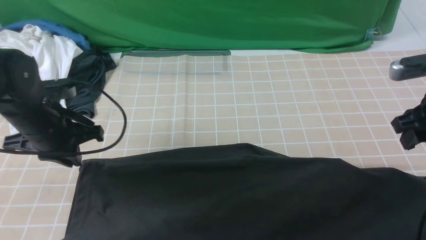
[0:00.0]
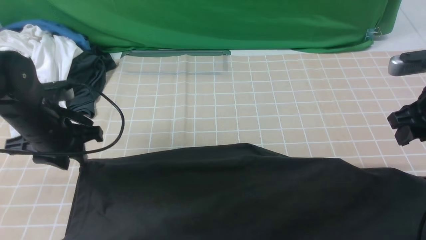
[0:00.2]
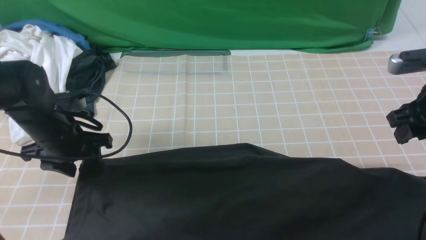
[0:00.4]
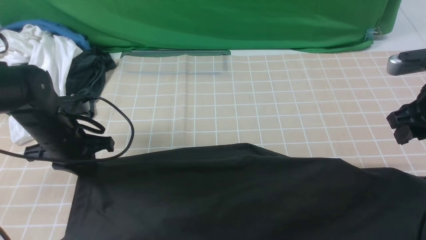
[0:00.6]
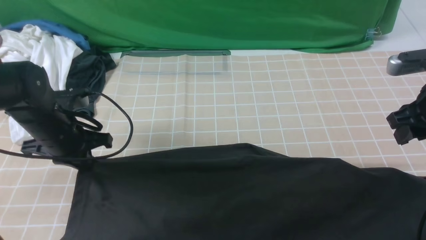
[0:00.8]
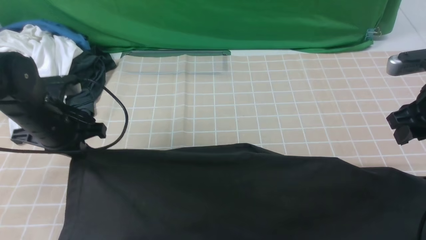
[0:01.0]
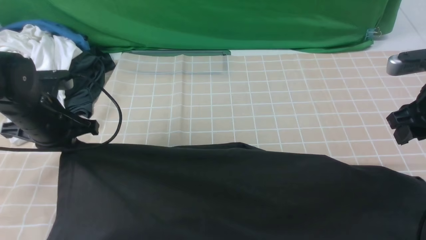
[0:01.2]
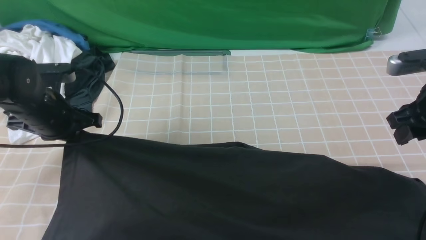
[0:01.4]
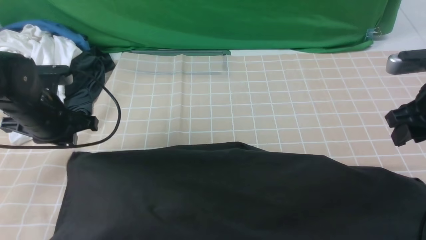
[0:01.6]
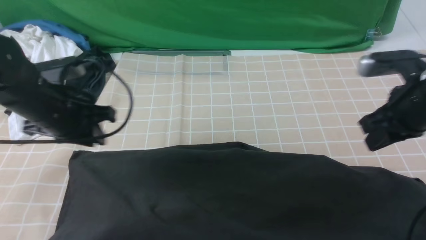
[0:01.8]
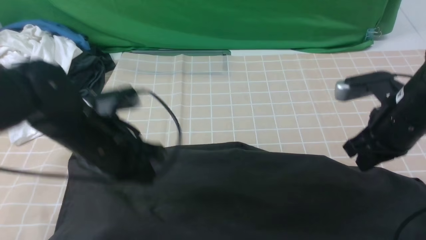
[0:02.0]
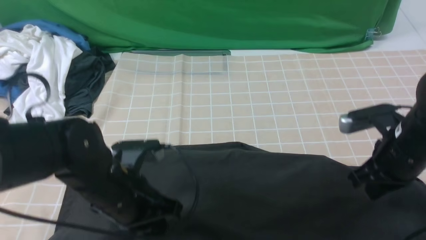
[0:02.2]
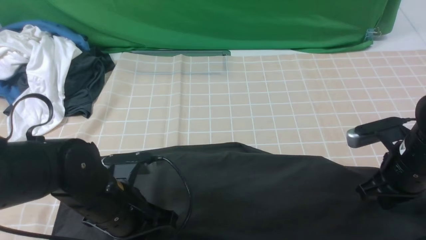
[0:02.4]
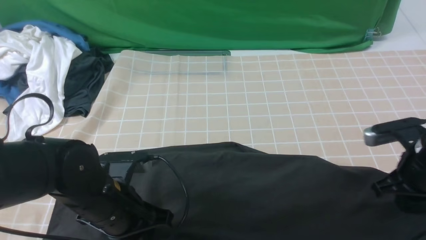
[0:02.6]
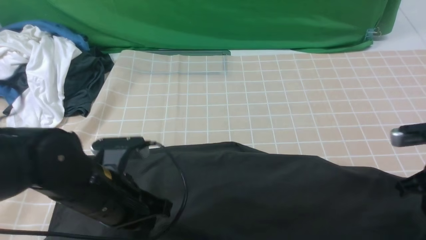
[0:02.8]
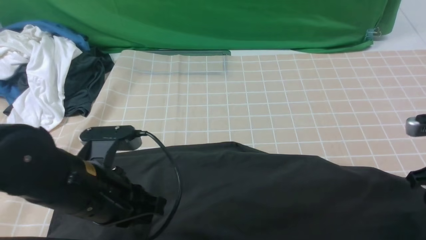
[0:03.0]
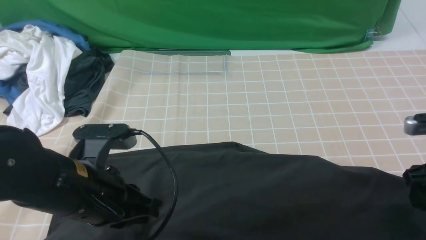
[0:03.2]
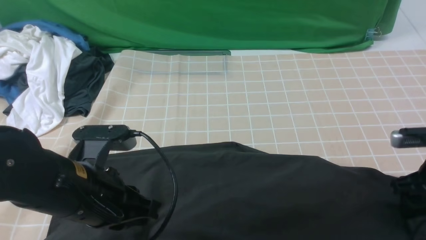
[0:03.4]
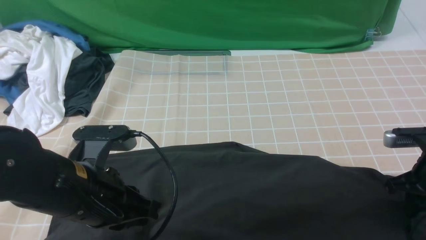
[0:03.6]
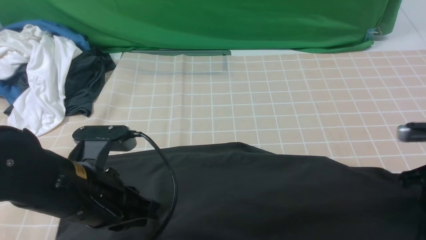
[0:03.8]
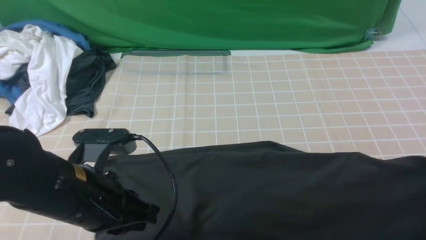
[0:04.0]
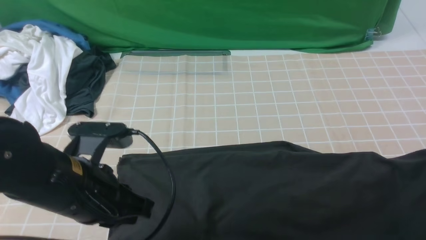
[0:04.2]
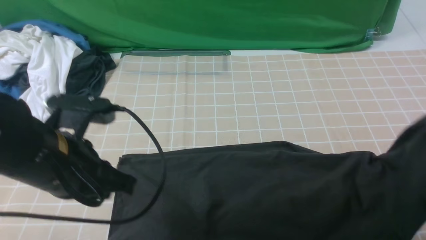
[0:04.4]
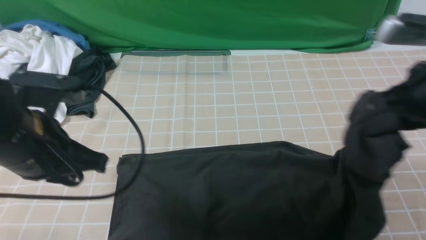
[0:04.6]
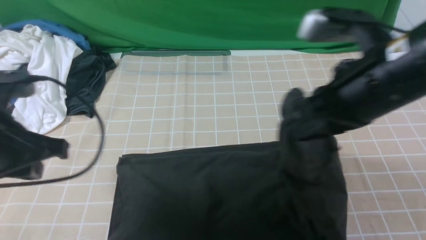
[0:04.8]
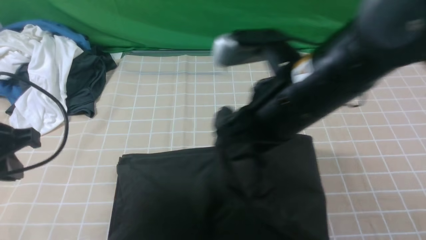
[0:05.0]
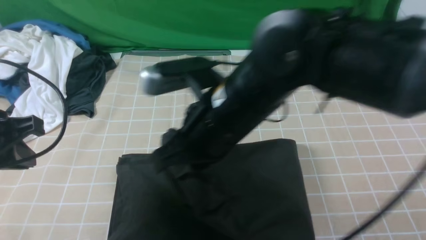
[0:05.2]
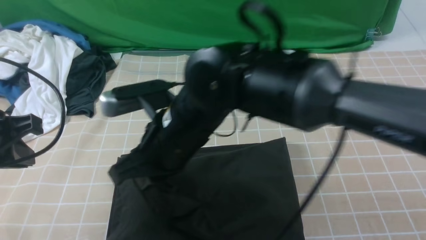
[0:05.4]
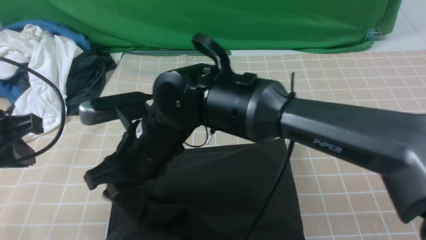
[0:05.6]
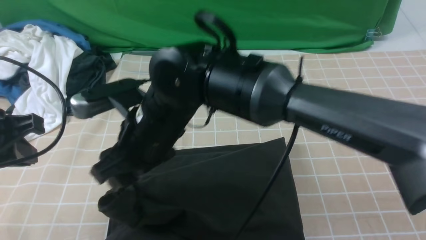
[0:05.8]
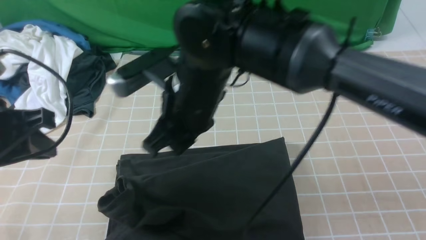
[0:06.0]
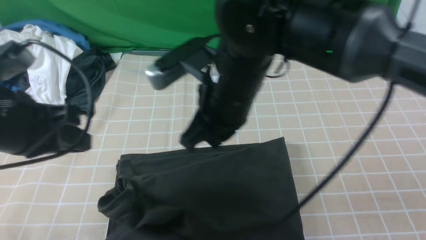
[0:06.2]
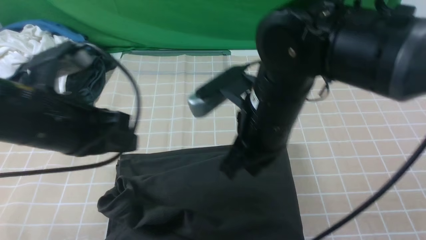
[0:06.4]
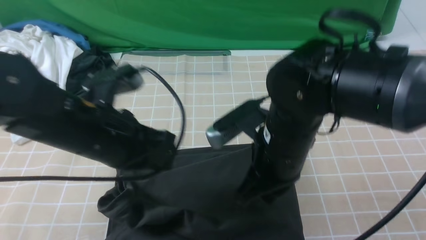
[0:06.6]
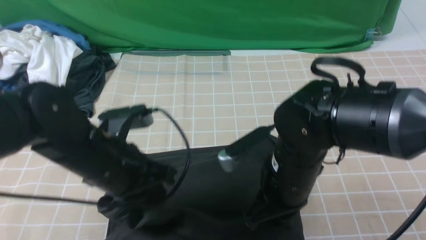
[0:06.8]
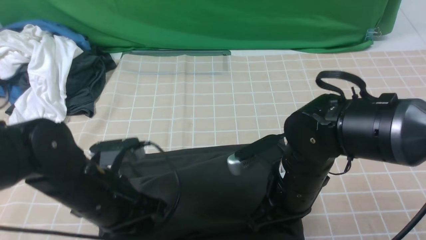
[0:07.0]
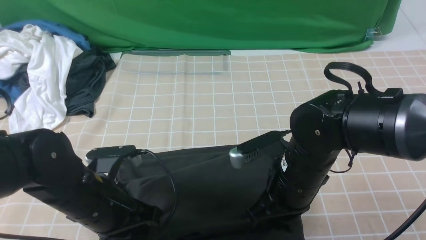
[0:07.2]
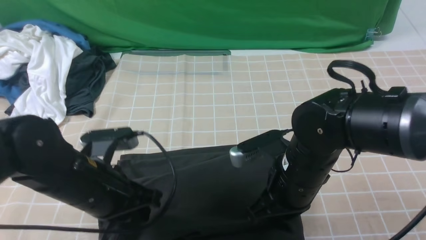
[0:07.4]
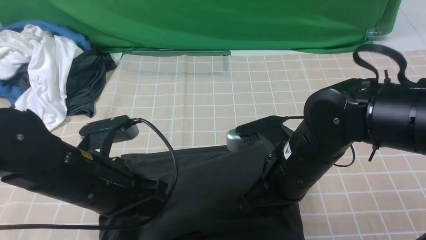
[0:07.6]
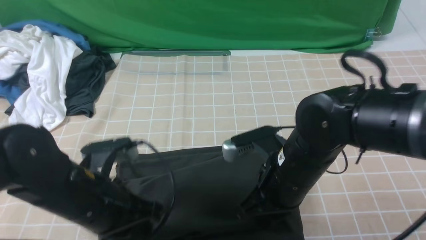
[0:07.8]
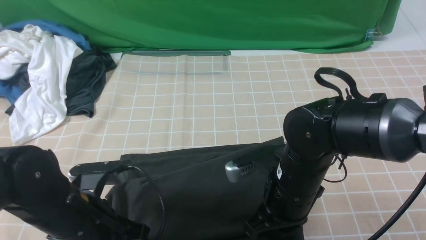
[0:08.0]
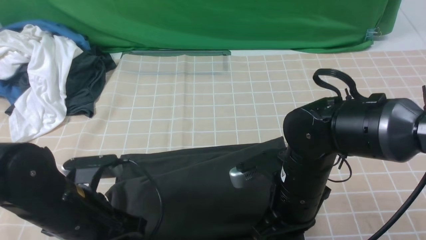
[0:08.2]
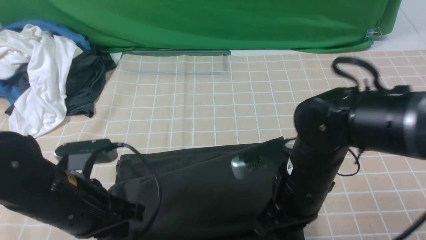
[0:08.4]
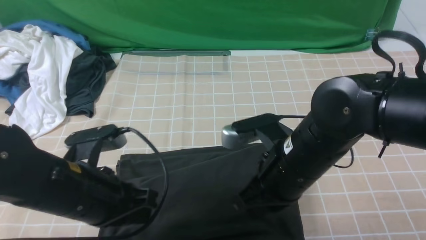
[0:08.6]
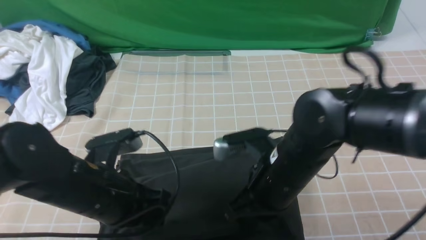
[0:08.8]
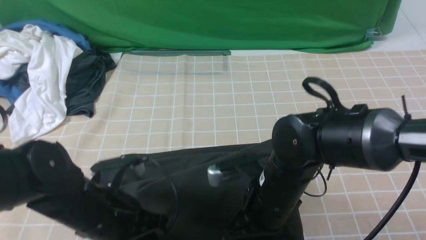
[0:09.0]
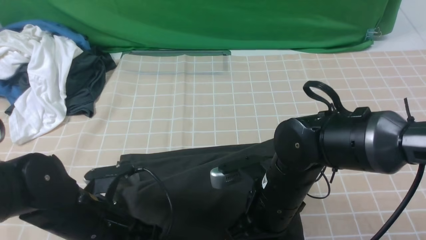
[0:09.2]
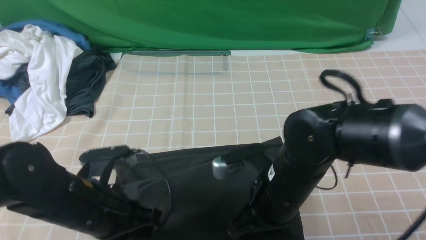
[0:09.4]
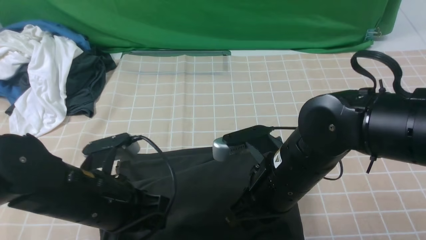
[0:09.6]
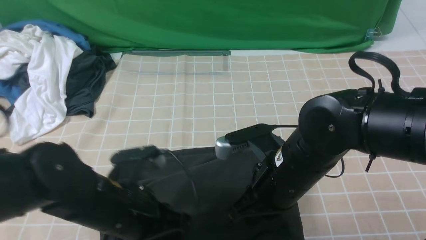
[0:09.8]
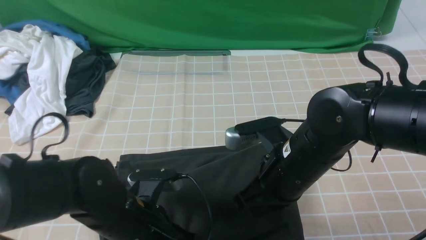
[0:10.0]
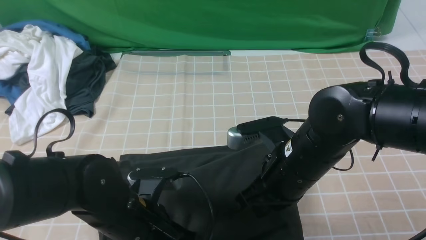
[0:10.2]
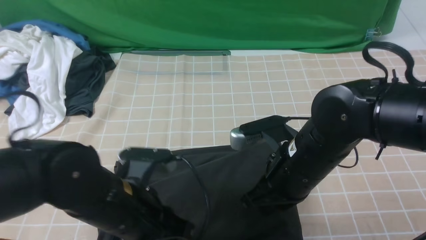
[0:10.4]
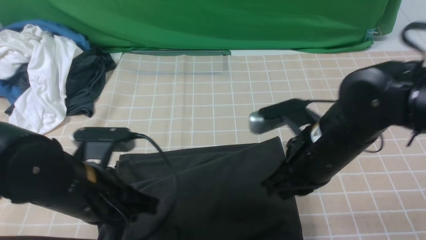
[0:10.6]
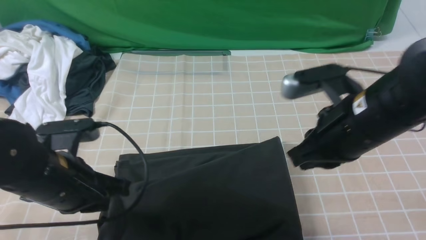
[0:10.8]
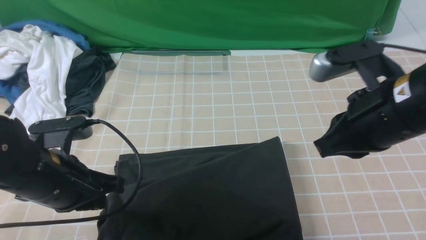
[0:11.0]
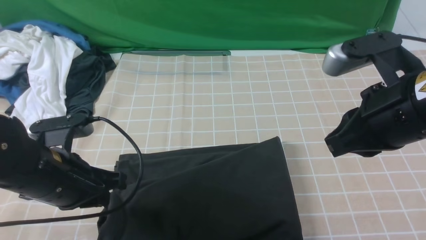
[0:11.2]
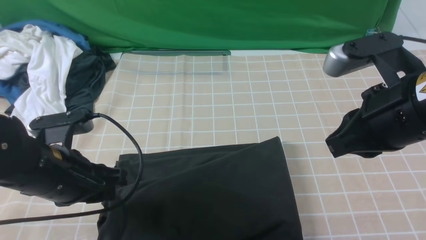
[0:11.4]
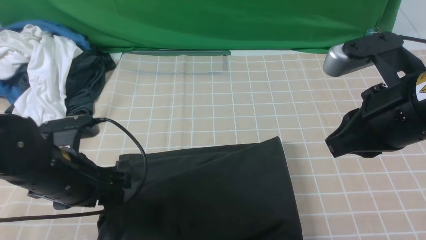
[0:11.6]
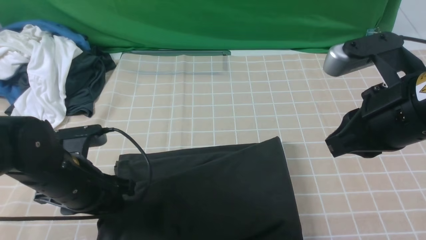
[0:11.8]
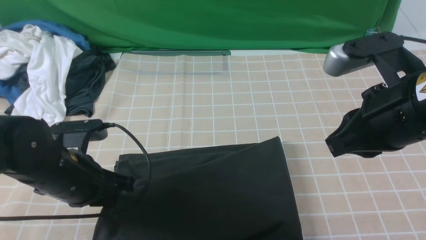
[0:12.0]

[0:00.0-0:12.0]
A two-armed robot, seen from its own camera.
Step, 0:00.0 to 0:03.8: use the right arm to clamp the right edge of the fabric.
Step, 0:04.0 to 0:06.0: use the right arm to drag the right edge of the fabric to the left and folds it over the left edge.
0:00.0 to 0:01.6: The left gripper opens, then closes once more.
0:01.6 to 0:03.0: The right gripper travels downward and backward by roughly 10 cm, and closes, then reopens, while the left gripper heads backward and to the right, covering approximately 15 cm.
0:03.0 to 0:04.4: The left gripper moves roughly 5 cm. The right gripper heads upward, covering some 10 cm, and closes.
0:04.4 to 0:06.0: The right gripper is displaced to the left by about 35 cm, while the left gripper heads to the left, covering roughly 10 cm.
0:06.0 to 0:07.6: Both grippers move to the right and downward, approximately 15 cm. The right gripper closes.
0:09.0 to 0:10.4: The right gripper is displaced upward by some 5 cm.
0:10.4 to 0:12.0: The right gripper heads upward and to the right, covering about 15 cm. The left gripper moves to the left, about 5 cm, and opens, then closes once more.

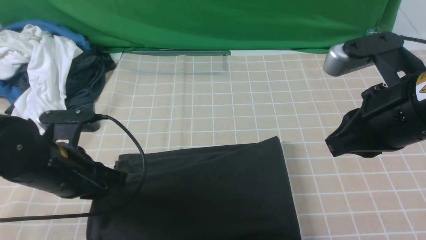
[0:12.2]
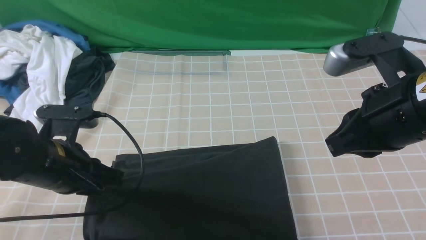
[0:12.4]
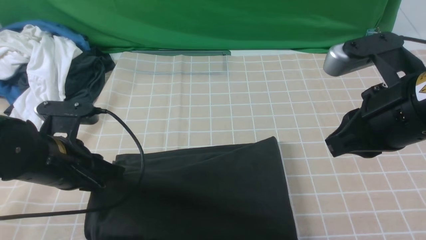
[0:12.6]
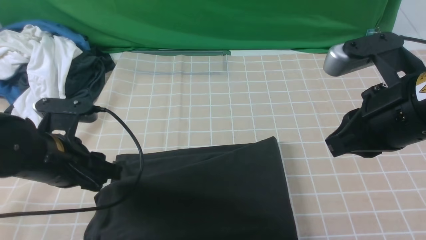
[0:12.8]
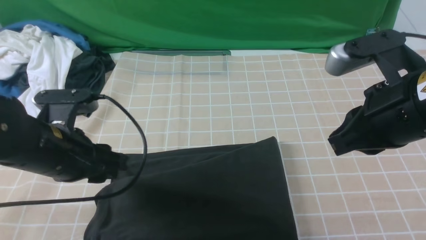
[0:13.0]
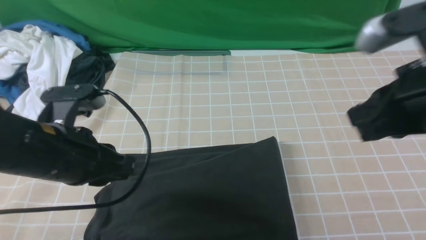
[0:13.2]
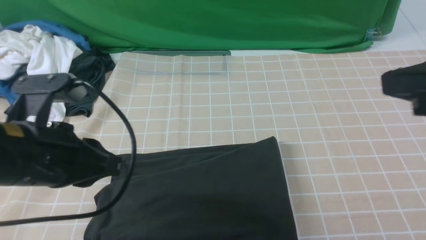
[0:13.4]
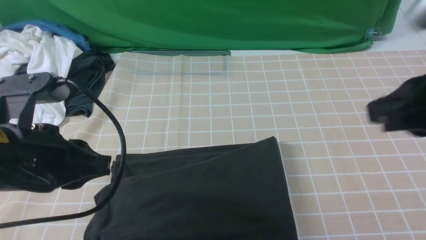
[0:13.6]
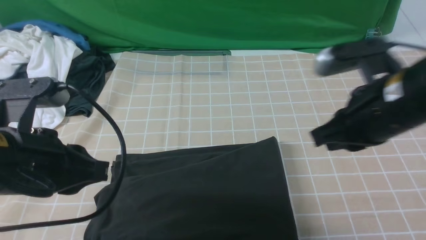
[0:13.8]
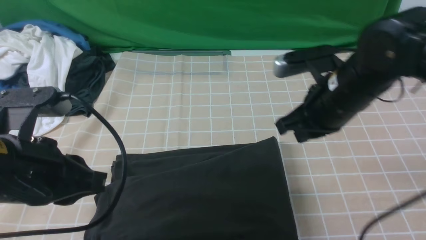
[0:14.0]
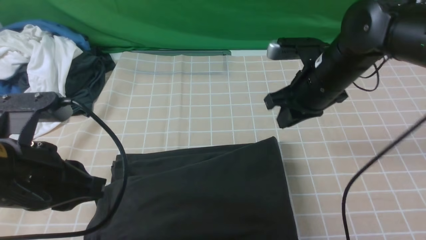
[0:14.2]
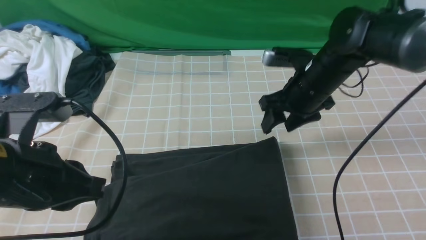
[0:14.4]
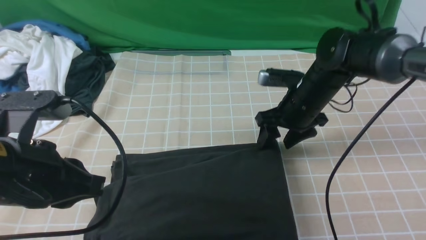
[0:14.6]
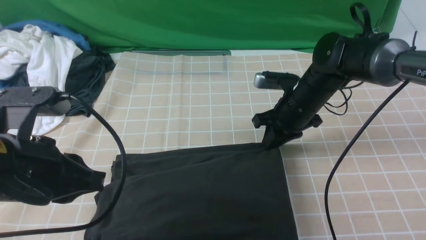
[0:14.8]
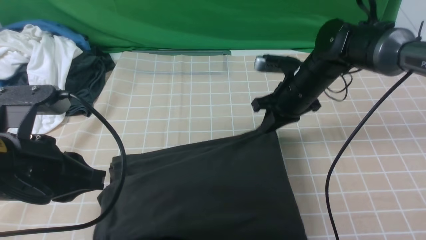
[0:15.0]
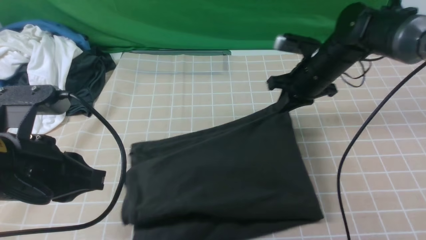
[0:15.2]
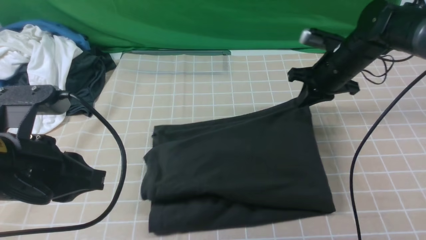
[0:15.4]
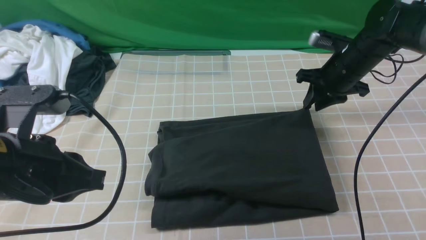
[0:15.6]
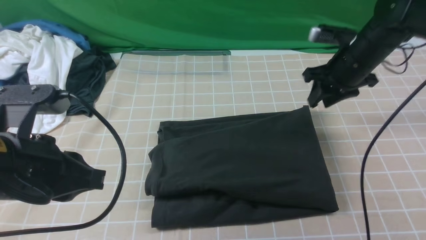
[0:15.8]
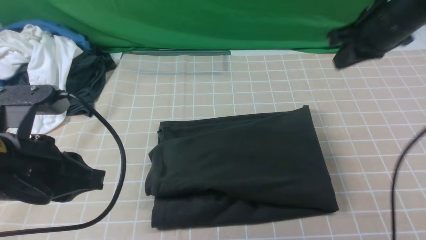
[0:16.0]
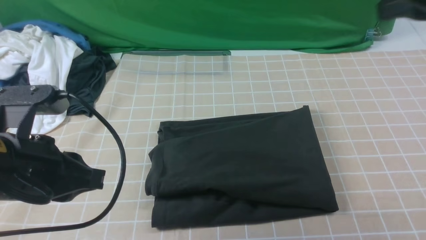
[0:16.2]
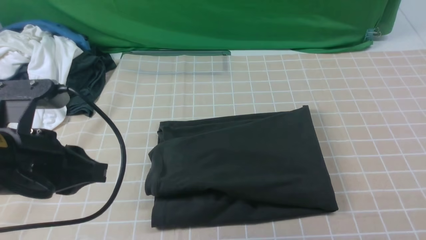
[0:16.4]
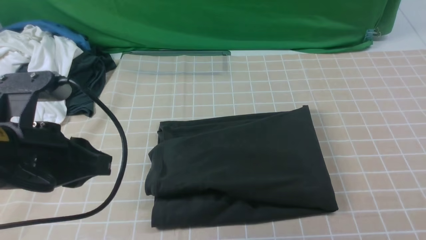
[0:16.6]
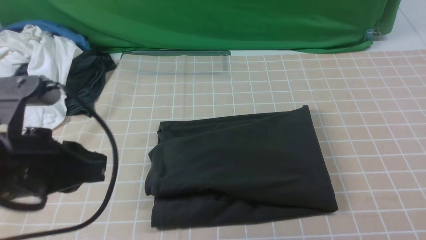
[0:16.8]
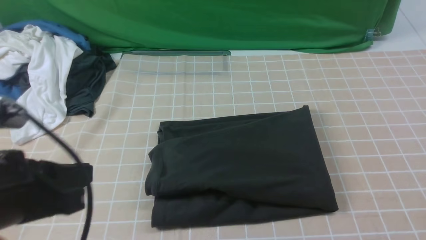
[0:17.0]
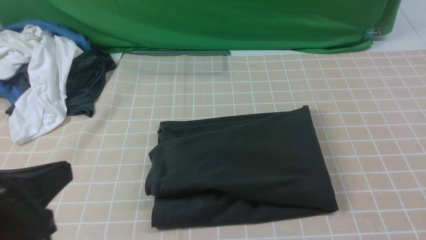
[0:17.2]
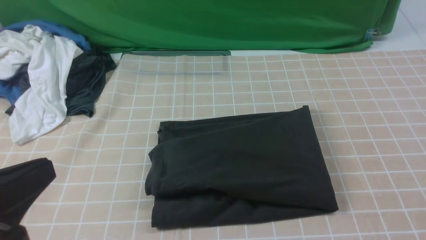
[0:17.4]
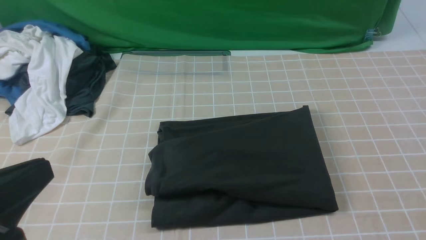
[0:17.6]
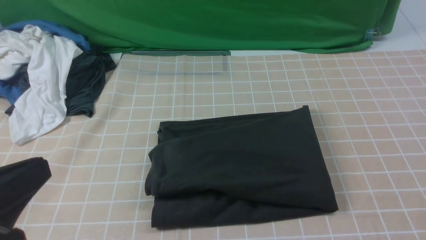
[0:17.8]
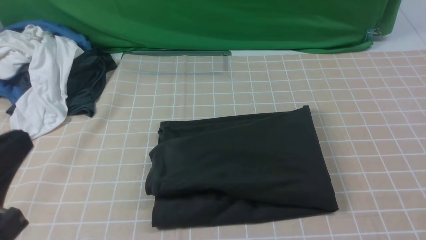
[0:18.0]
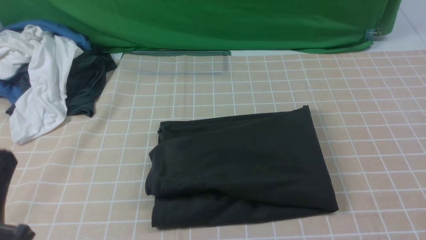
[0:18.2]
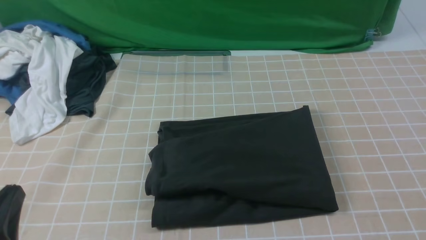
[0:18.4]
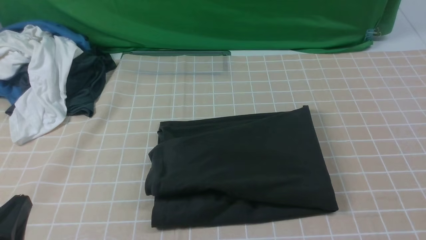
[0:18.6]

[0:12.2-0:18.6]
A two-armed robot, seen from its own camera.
0:12.2 to 0:13.8: The left gripper travels upward and backward by some 10 cm, and opens, then closes again.
0:13.8 to 0:15.4: The right gripper goes some 20 cm forward and downward, and opens and closes again.
0:15.4 to 0:17.0: The right gripper travels backward by some 35 cm. Meanwhile the left gripper ends up roughly 5 cm from where it was.
0:17.0 to 0:18.6: The left gripper shifts some 10 cm downward and backward.
